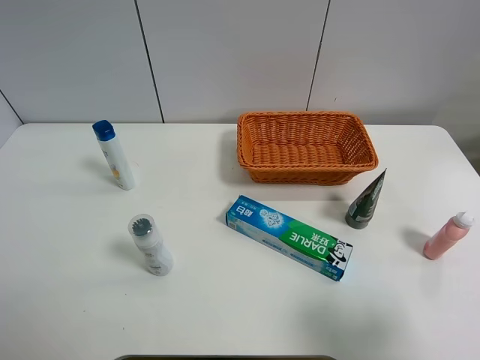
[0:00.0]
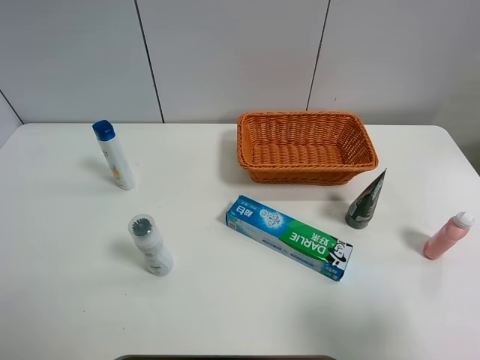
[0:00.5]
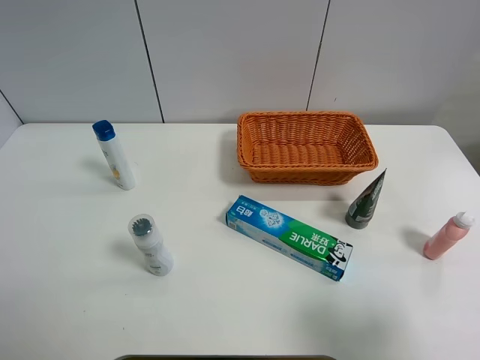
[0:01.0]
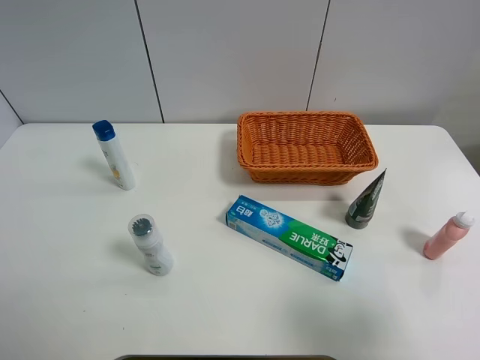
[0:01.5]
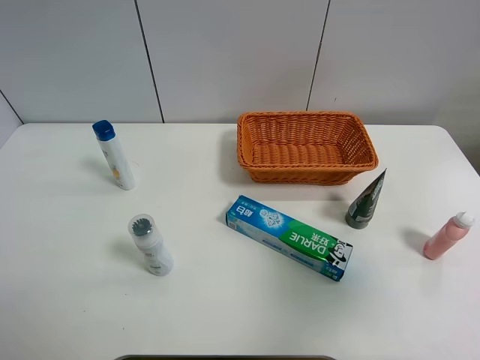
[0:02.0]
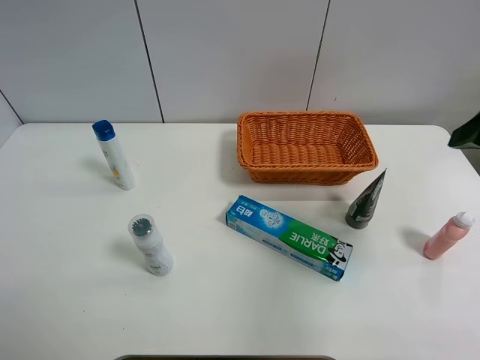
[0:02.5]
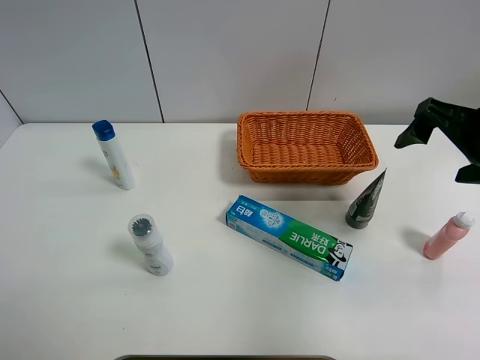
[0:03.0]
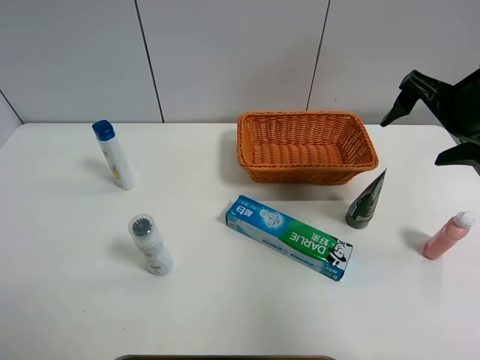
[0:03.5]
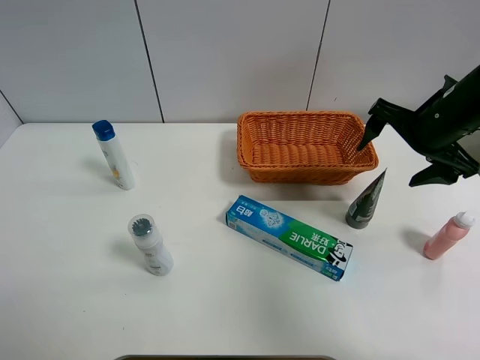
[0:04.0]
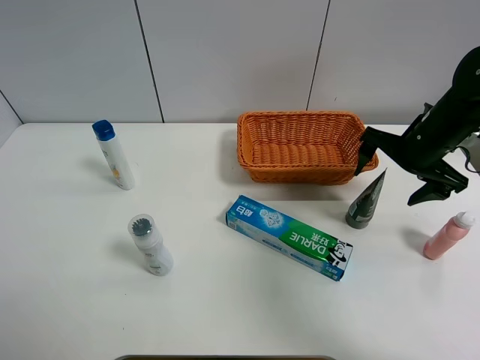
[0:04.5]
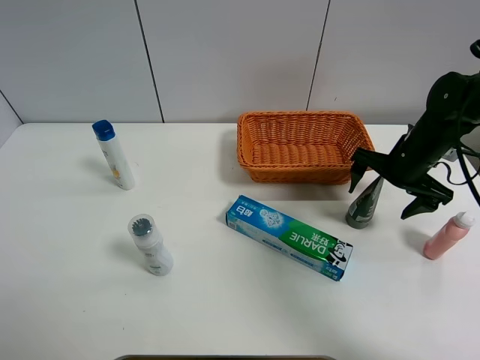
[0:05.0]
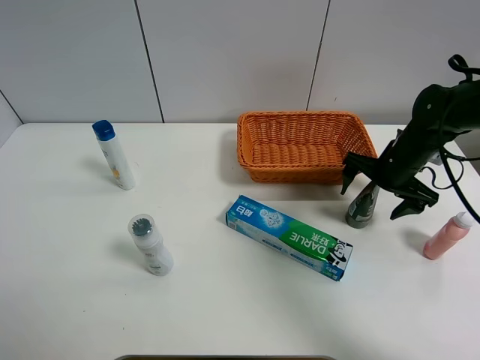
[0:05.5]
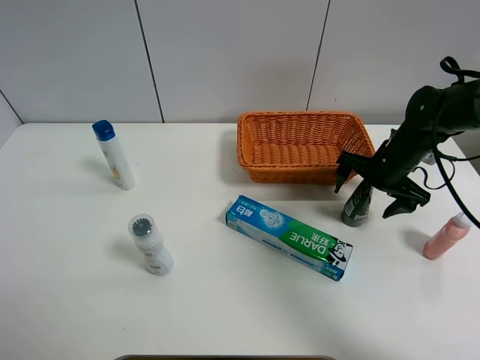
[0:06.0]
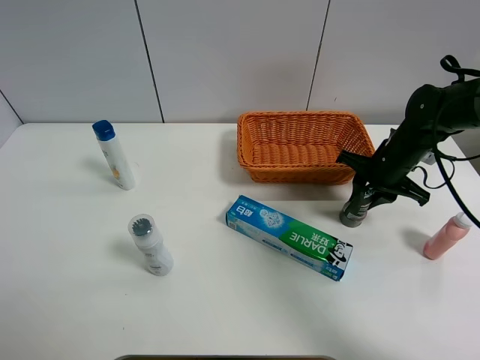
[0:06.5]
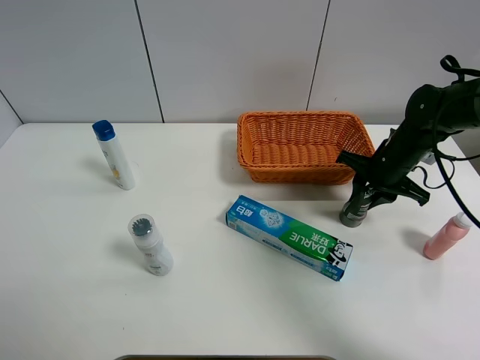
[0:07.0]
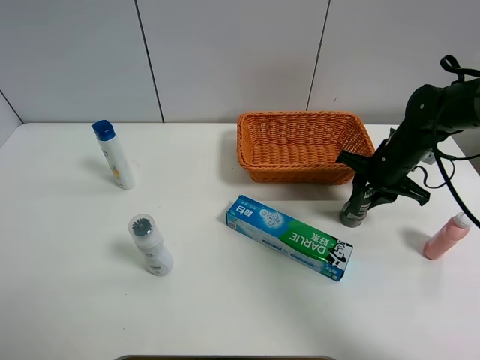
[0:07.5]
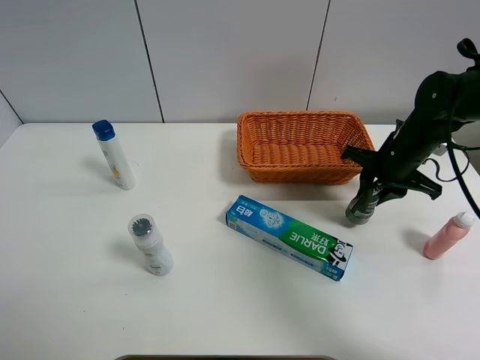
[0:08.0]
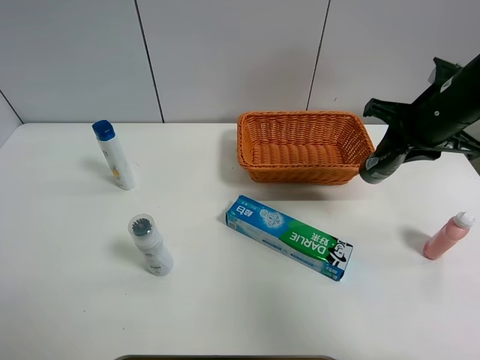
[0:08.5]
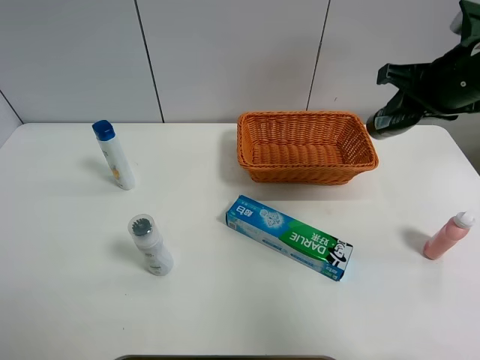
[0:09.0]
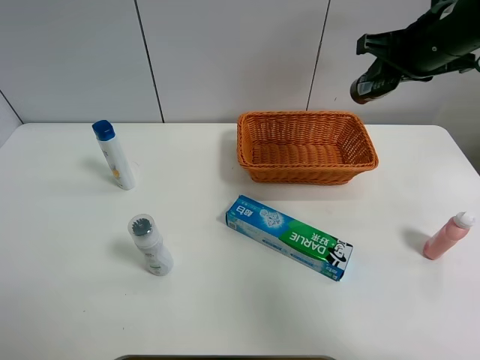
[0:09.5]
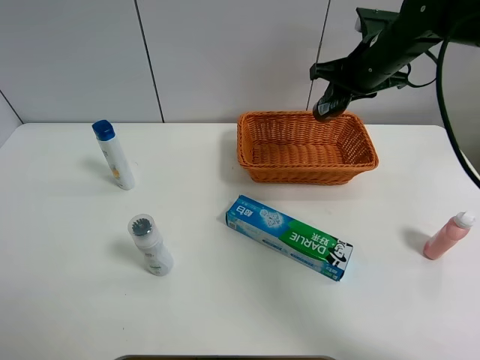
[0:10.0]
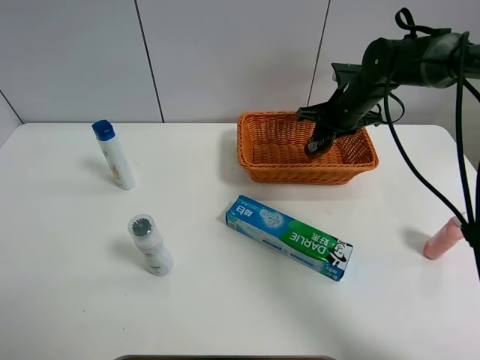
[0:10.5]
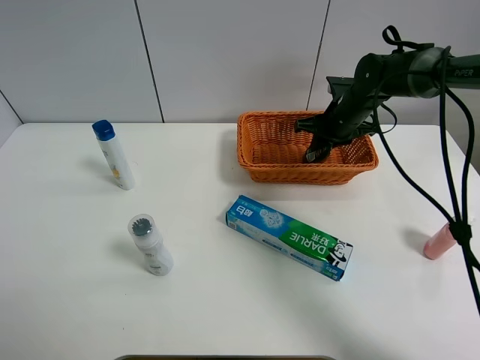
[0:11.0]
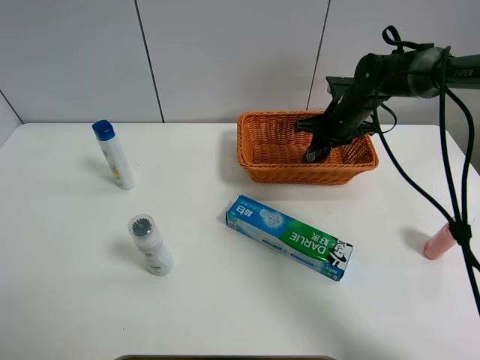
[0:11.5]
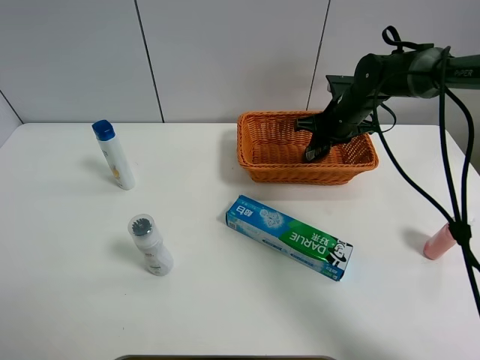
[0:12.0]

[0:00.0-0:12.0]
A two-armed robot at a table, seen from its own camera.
Task of the whole recording: Place the object closest to the toothpaste in the basket.
Step, 0:00.0 to 0:06.5: Grasp the soft facial cleanser with right gripper.
0:00.0 to 0:02.0: The right gripper heads upward and forward, covering approximately 10 cm.
0:02.0 to 0:04.0: The right gripper heads forward and downward, covering roughly 25 cm.
0:04.0 to 0:06.0: The right gripper travels downward by some 10 cm.
0:06.0 to 0:08.0: The right gripper closes.
0:08.0 to 0:10.0: The right gripper goes roughly 15 cm upward, forward and to the left.
0:10.0 to 0:12.0: The right gripper travels downward by about 10 cm.

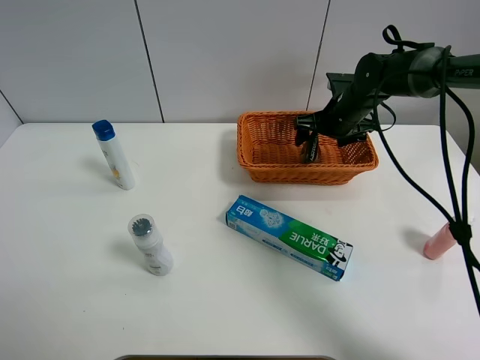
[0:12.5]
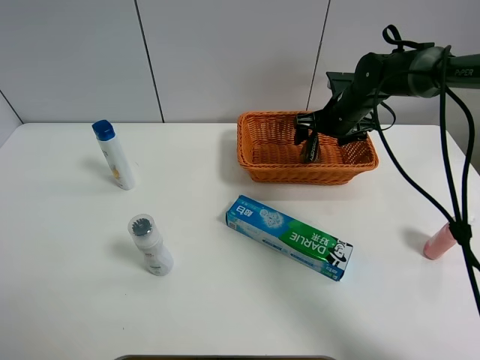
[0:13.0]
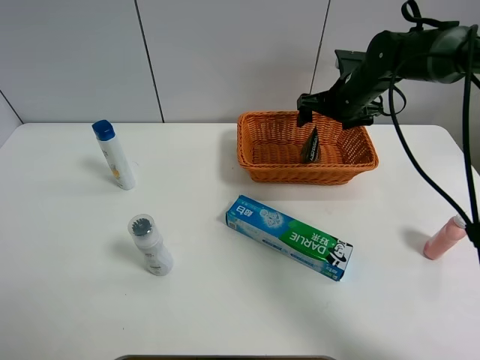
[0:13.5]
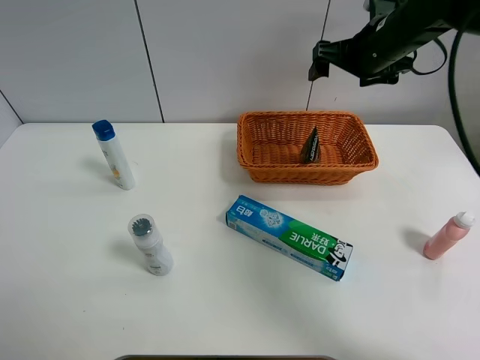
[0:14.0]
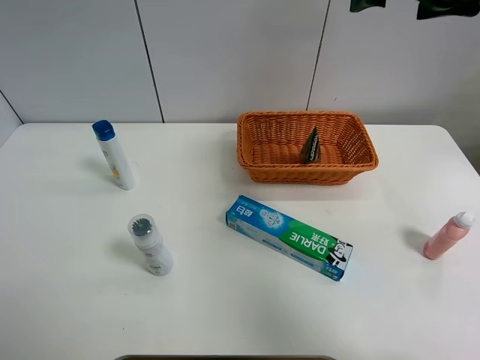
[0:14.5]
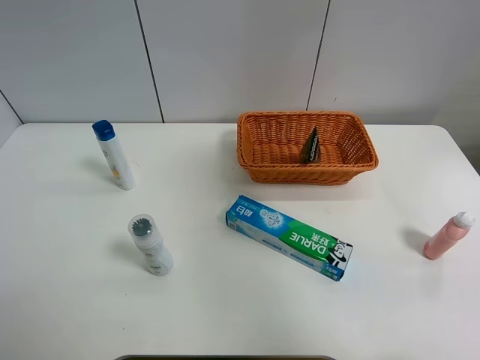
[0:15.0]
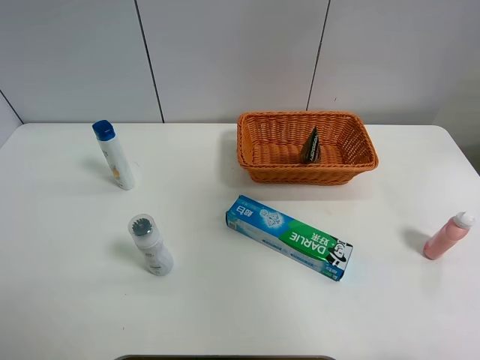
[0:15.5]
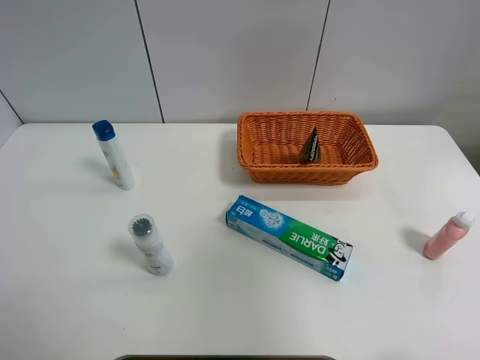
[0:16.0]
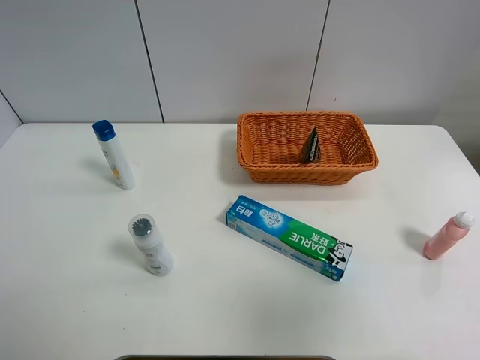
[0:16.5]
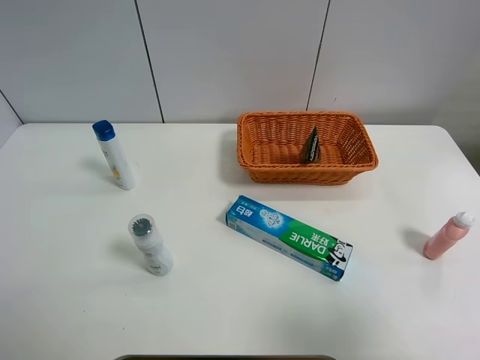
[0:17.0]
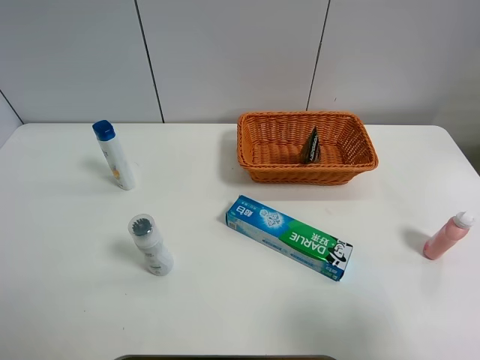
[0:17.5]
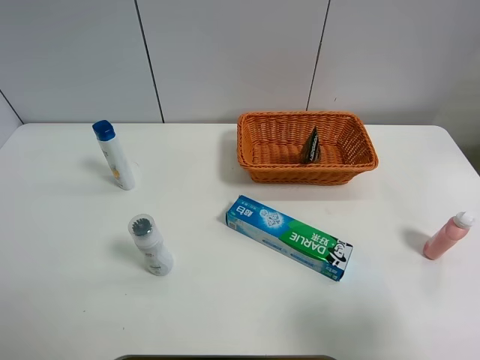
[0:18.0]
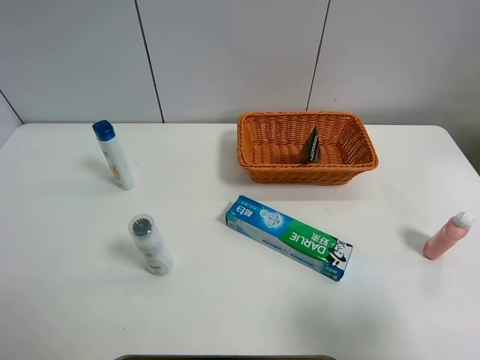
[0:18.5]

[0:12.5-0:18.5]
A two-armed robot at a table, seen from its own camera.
Task of the whole recording: Place the object closest to the toothpaste in the basket.
0:12.5 to 0:14.5: The right gripper is displaced upward and backward by some 30 cm.
0:14.5 to 0:16.5: The right gripper heads backward, covering some 35 cm.
0:16.5 to 0:18.5: The right gripper shifts approximately 10 cm downward.
